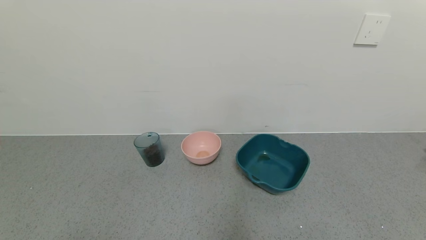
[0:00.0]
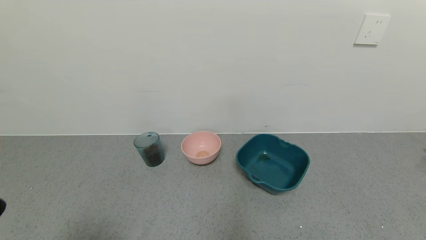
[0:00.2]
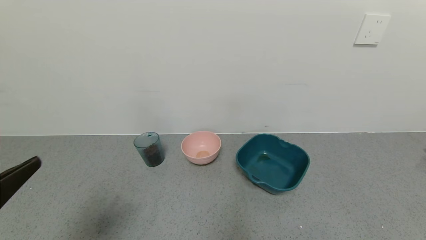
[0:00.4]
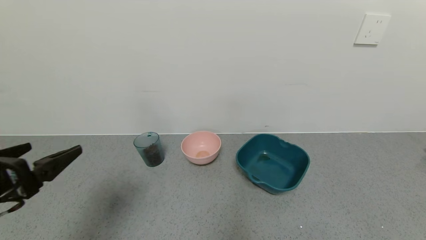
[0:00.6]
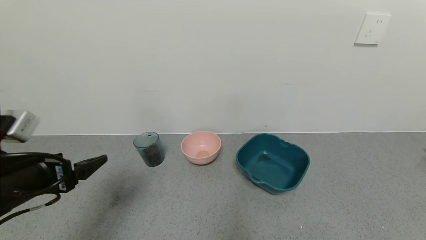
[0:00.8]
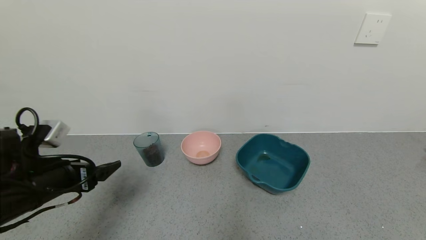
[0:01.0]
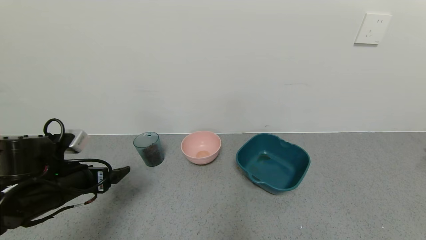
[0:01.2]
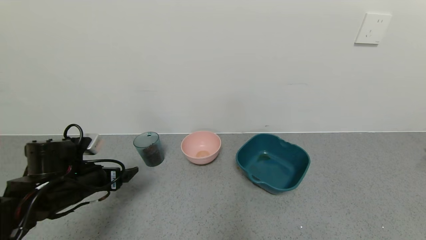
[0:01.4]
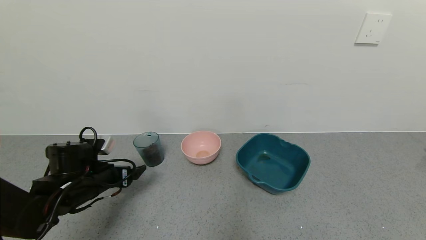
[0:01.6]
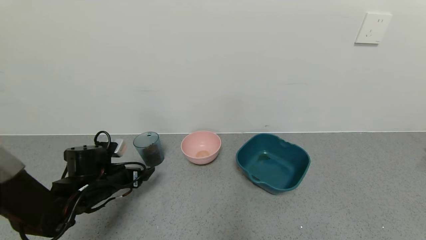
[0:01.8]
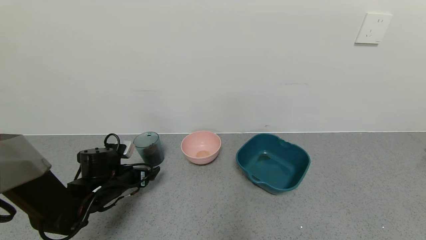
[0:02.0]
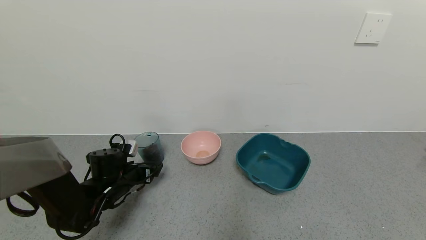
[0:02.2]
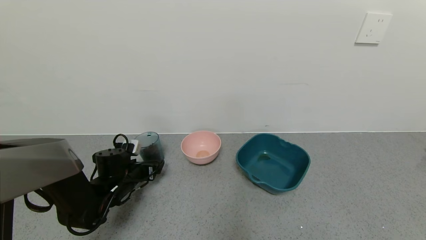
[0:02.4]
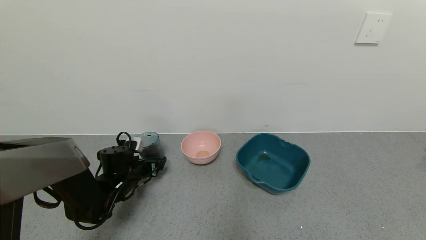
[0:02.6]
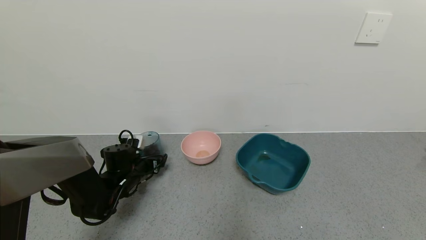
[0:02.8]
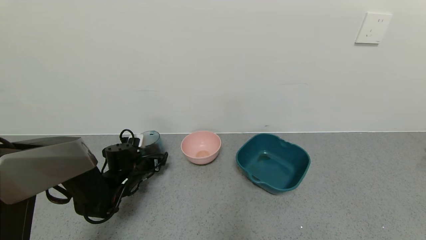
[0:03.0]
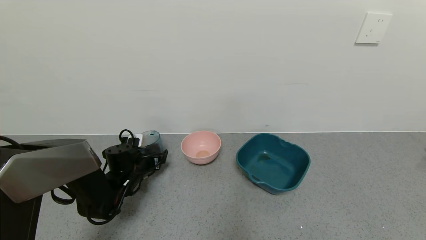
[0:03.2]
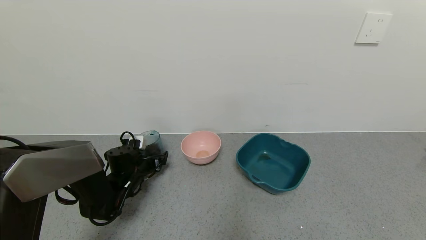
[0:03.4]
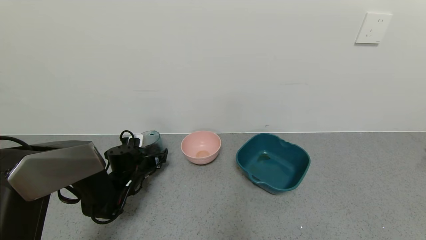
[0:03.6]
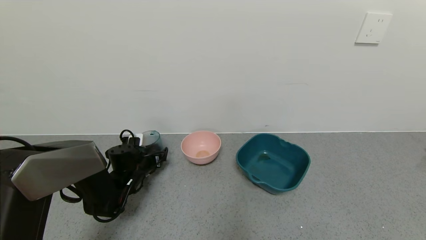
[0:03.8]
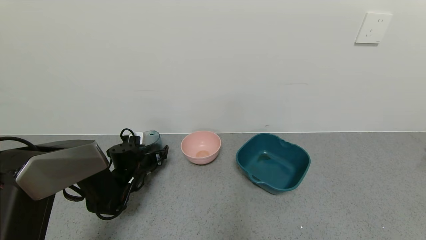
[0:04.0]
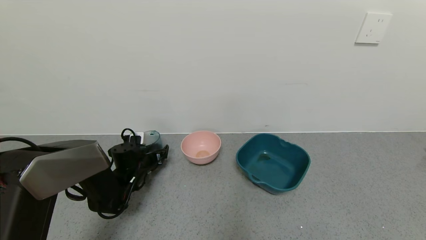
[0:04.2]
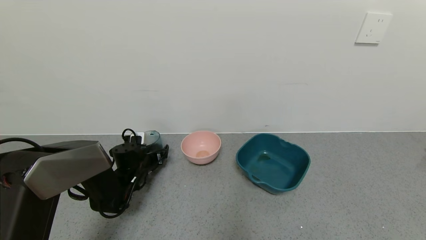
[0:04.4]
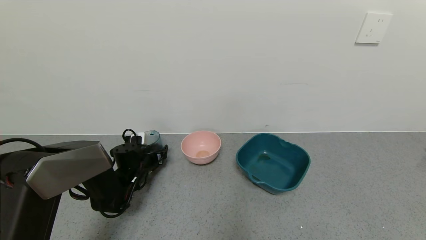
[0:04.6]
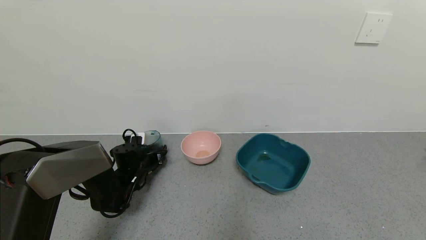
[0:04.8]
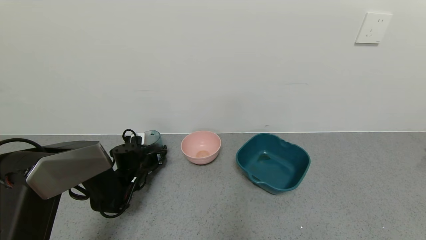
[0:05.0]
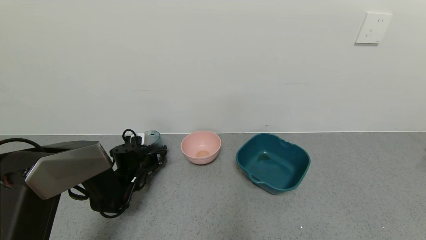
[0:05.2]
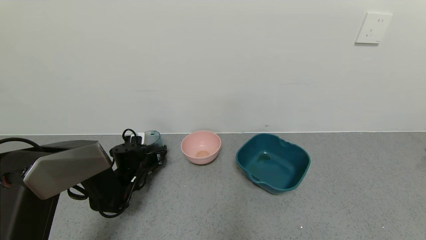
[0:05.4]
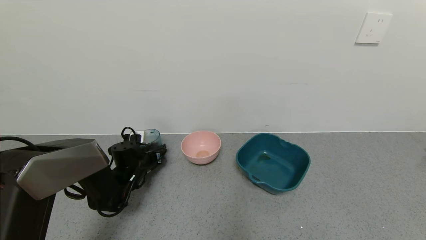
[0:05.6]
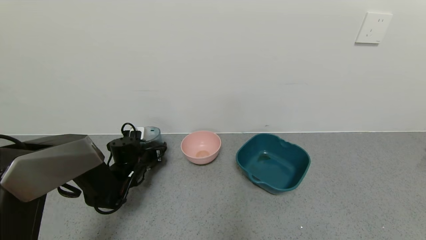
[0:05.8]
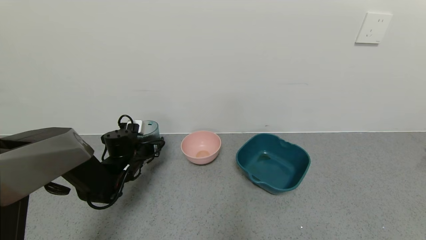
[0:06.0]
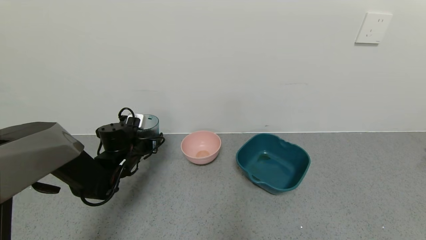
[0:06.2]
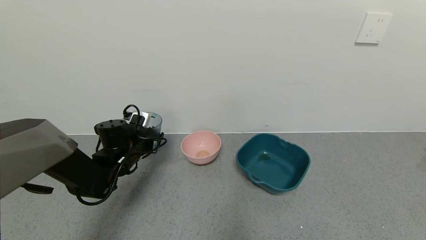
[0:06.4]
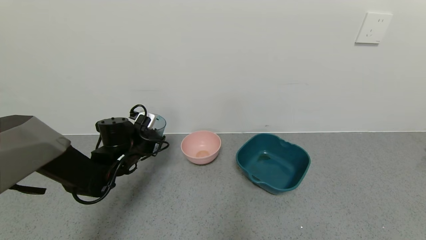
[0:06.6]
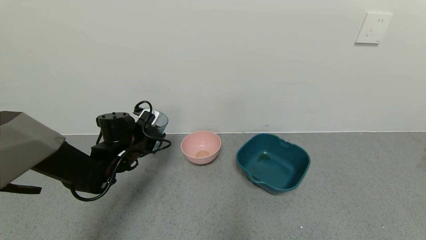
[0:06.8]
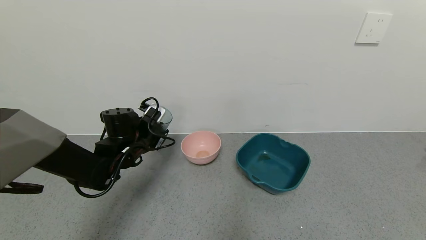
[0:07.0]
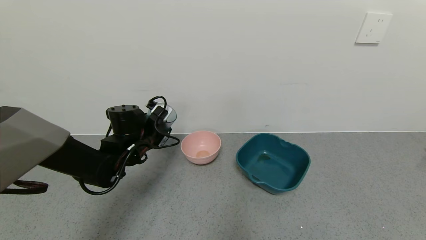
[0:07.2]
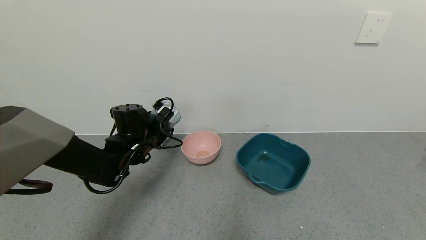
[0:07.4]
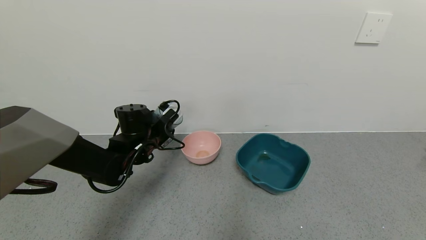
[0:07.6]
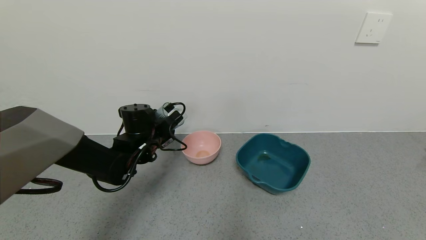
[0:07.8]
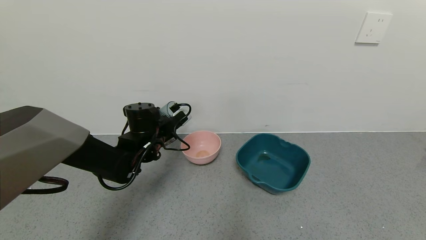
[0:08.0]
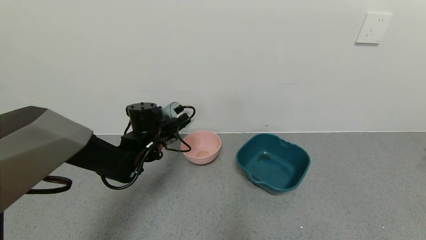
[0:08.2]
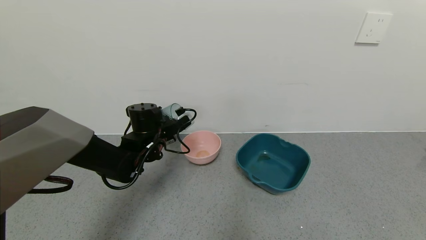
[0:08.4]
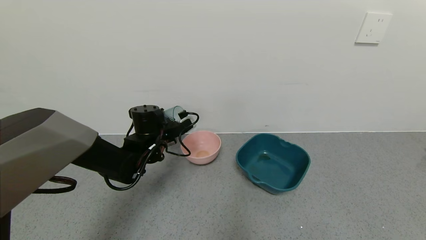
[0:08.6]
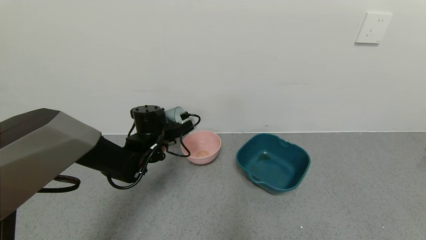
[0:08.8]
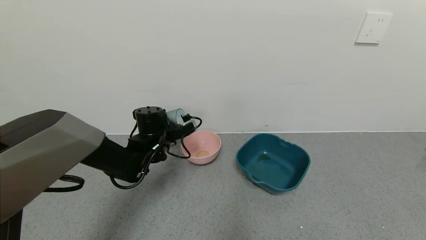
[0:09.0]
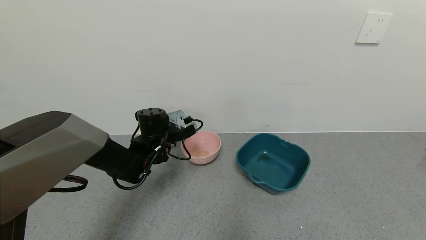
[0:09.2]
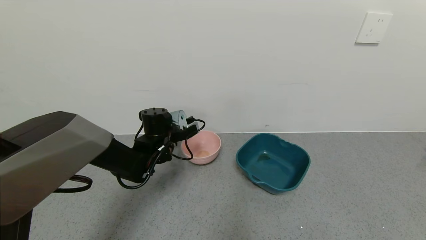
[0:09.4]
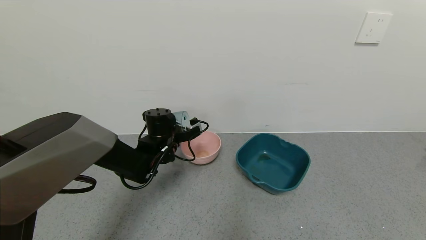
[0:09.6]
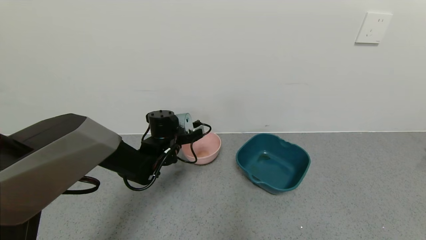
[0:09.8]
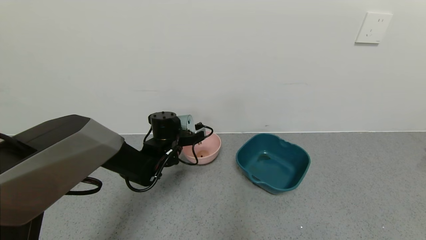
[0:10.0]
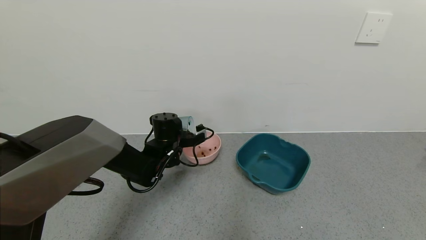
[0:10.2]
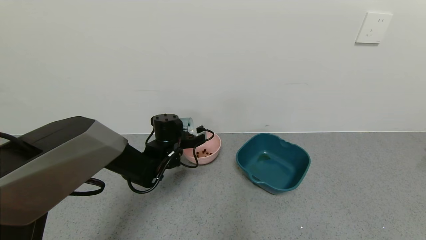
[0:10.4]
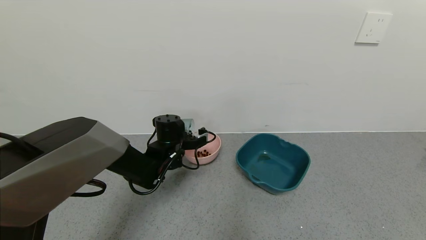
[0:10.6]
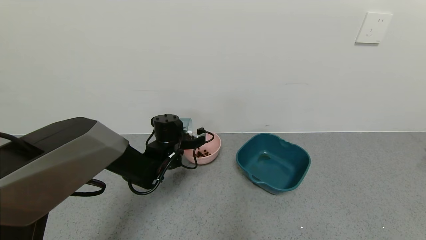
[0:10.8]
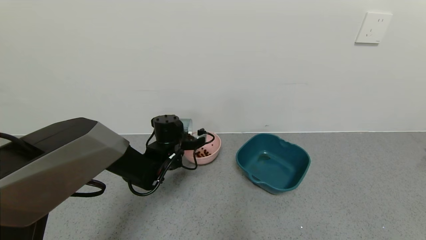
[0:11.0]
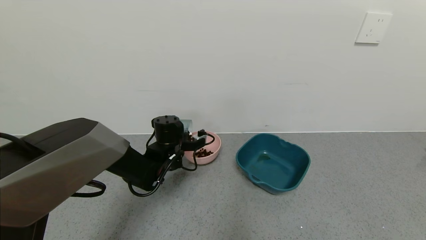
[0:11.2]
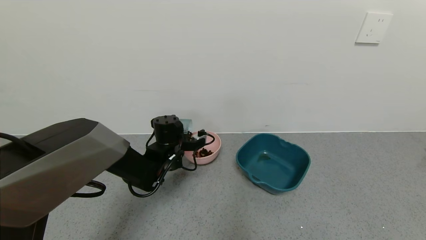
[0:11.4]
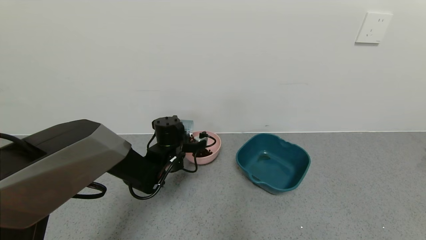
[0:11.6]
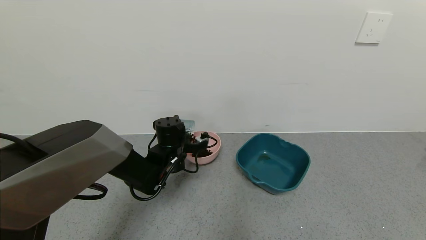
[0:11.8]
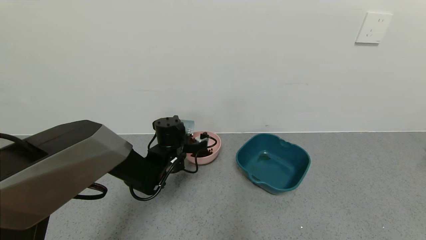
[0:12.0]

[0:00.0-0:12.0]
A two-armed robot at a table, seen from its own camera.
Task of the whole recording: use a gripper to pick up the cup and pour the solid into a bowl or tray.
Step, 0:00.0 to 0:04.6: Grasp the glass of coffee beans with the left gripper.
0:00.0 to 0:01.6: The left gripper goes roughly 30 cm forward.
0:01.6 to 0:03.0: The left gripper heads forward and downward, covering approximately 10 cm.
0:03.0 to 0:04.4: The grippers make only small movements.
0:04.4 to 0:06.0: The left gripper closes up.
0:06.0 to 0:07.6: The left gripper heads upward and to the right, covering about 10 cm.
0:09.0 to 0:10.4: The grippers make only small movements.
0:10.4 to 0:12.0: The grippers stay close to where they were, moving slightly.

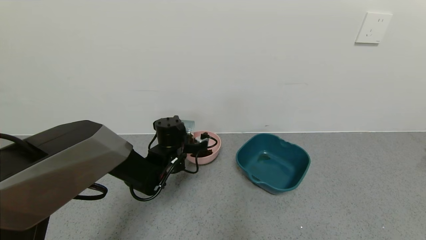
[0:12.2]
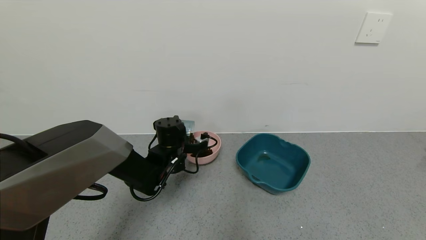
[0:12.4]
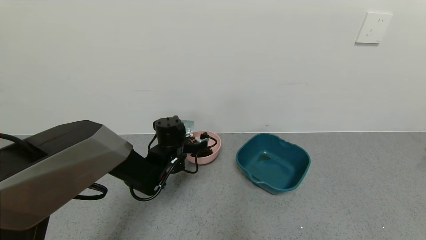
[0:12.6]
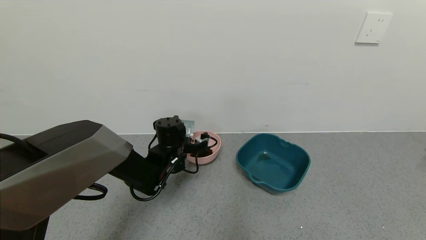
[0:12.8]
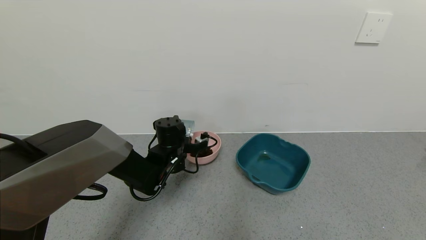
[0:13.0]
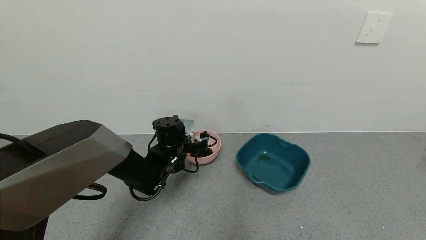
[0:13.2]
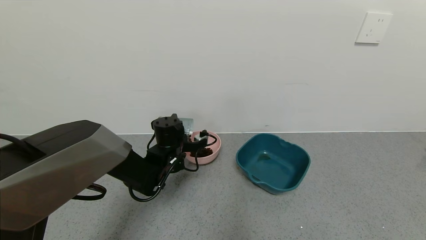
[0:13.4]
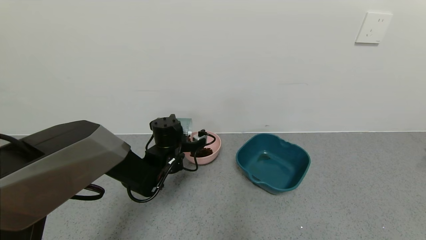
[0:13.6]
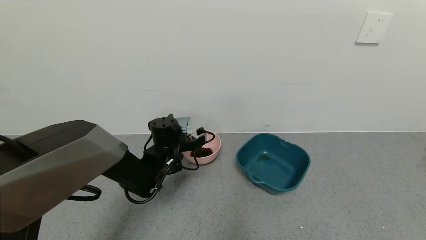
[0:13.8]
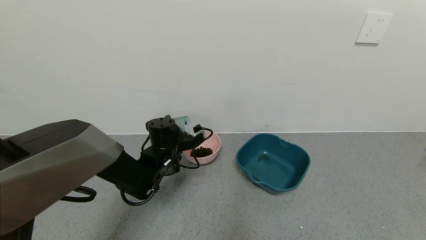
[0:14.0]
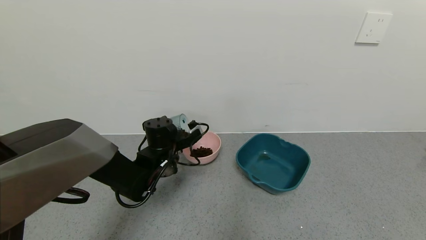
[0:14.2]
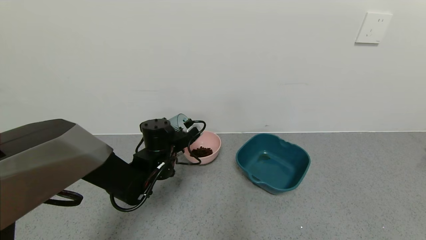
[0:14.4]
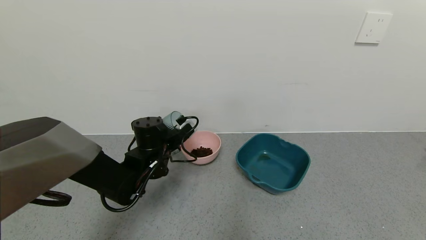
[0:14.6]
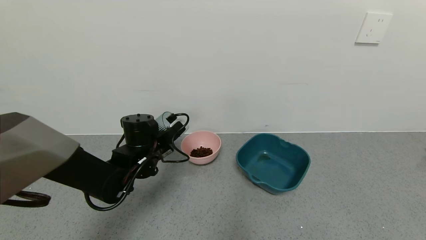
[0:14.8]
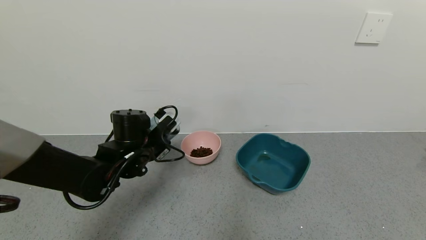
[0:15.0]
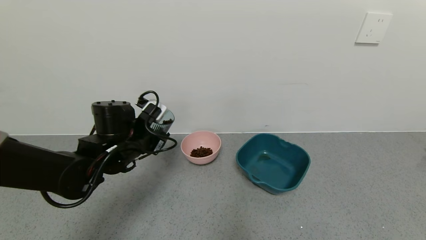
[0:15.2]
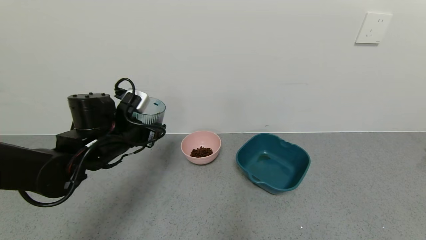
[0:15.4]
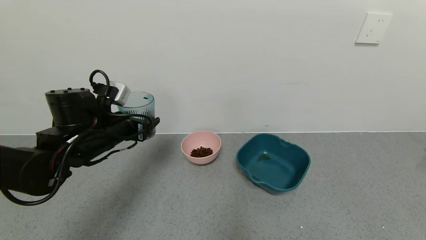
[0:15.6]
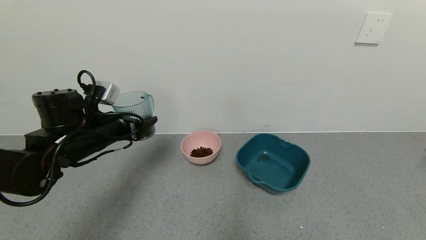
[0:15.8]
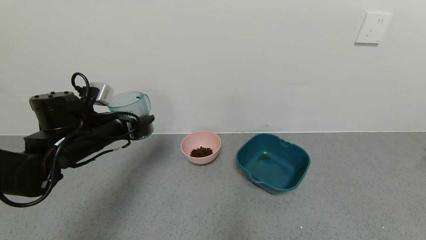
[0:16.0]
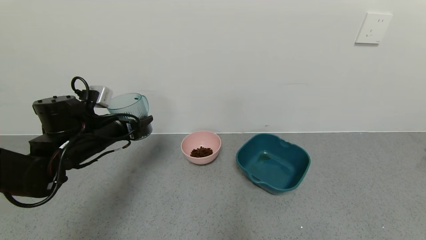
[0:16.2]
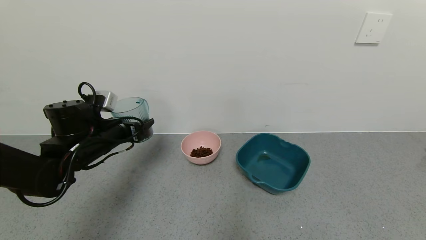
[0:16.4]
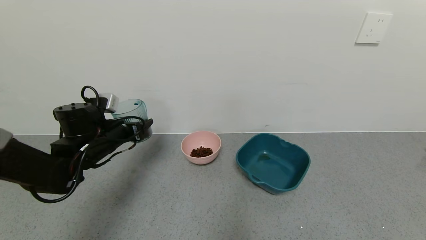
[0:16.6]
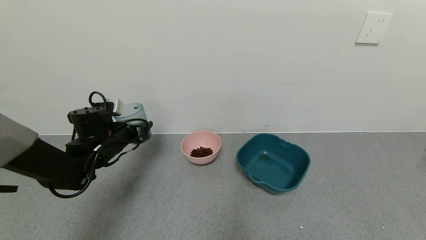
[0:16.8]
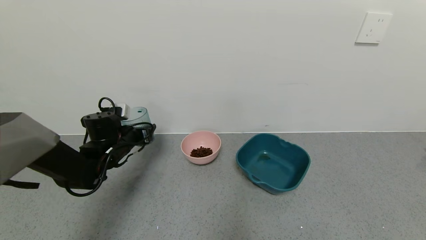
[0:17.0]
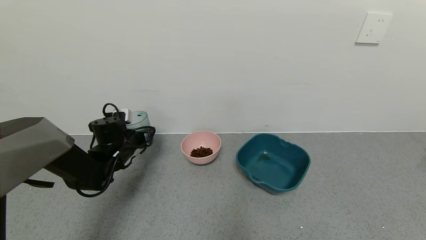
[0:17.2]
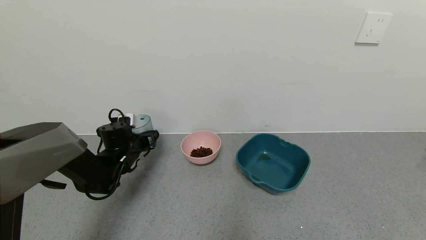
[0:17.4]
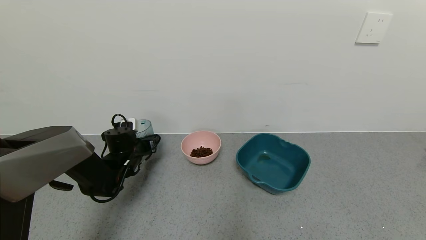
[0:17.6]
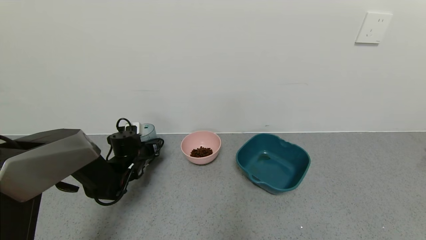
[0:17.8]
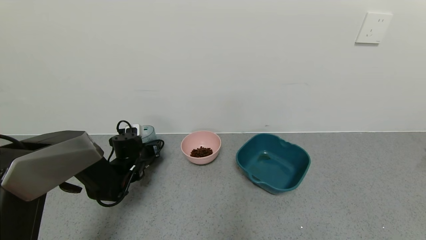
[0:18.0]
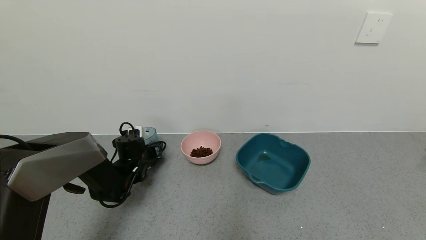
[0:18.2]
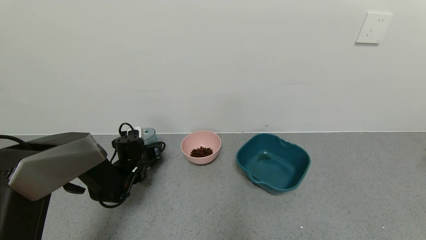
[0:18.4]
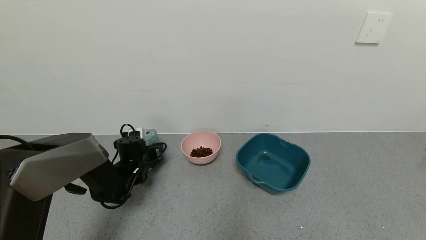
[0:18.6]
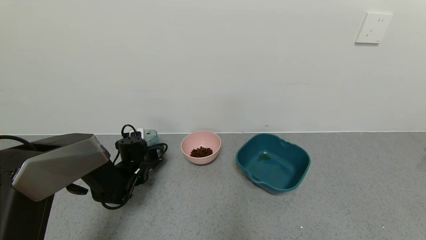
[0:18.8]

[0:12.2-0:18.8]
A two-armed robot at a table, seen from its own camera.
Task of the whole recording: use a gripper to pick up the cup and pour the solid into a bowl or tray.
Step, 0:12.2 to 0:14.2: Pour the coffee beans into the pink bowl with the left gripper.
0:12.2 to 0:13.8: The grippers stay close to where they were, moving slightly.
0:13.8 to 0:15.4: The left gripper moves to the left, upward and backward, roughly 15 cm.
0:15.4 to 0:17.2: The left gripper shifts roughly 15 cm downward, forward and to the left.
0:17.2 to 0:18.8: The left gripper moves downward, about 5 cm.
